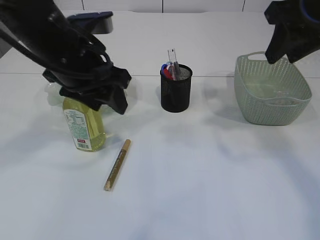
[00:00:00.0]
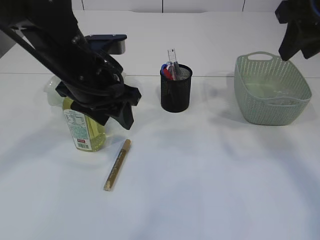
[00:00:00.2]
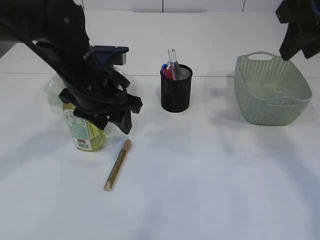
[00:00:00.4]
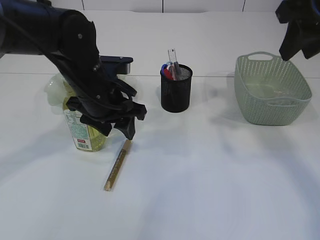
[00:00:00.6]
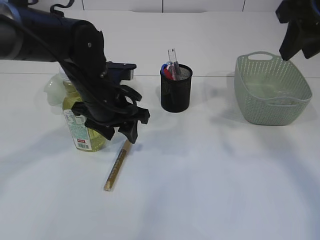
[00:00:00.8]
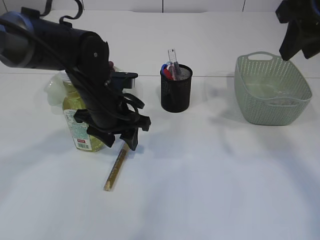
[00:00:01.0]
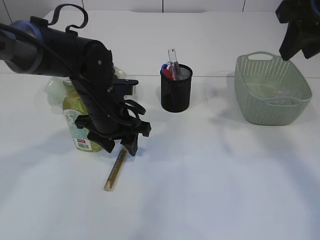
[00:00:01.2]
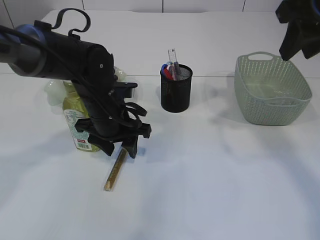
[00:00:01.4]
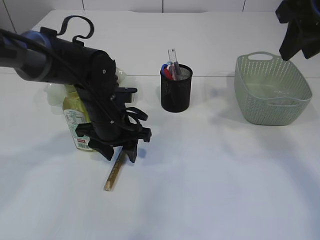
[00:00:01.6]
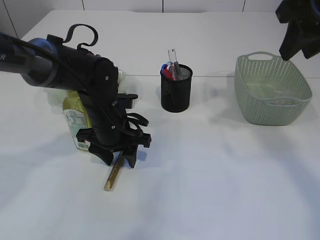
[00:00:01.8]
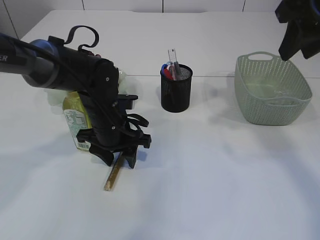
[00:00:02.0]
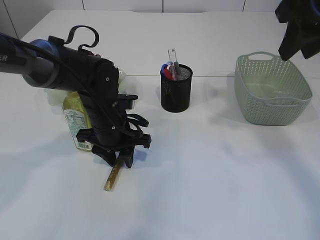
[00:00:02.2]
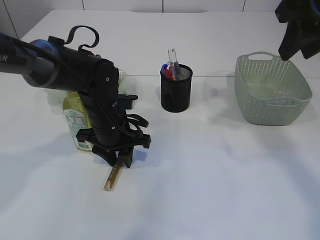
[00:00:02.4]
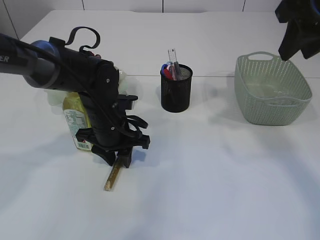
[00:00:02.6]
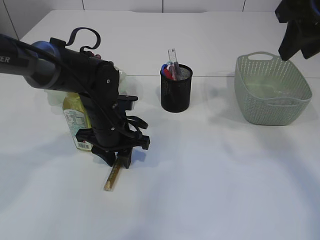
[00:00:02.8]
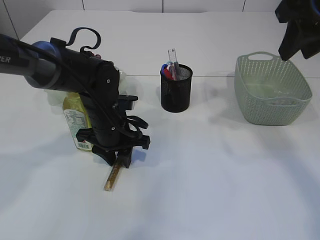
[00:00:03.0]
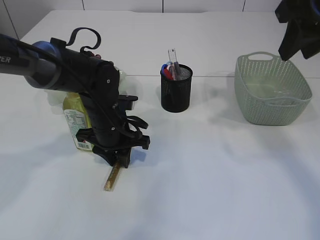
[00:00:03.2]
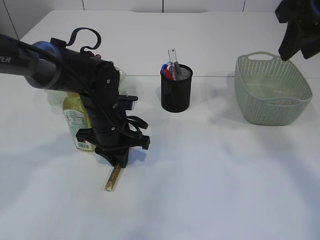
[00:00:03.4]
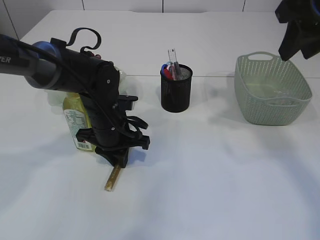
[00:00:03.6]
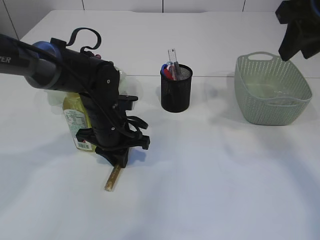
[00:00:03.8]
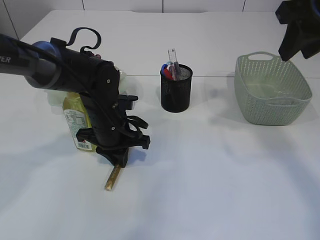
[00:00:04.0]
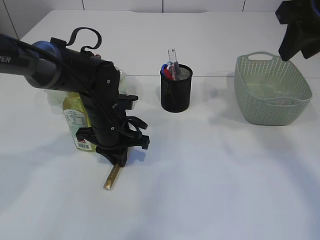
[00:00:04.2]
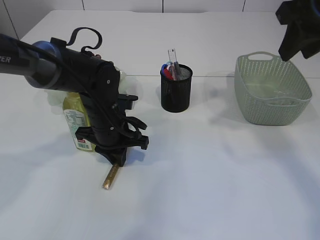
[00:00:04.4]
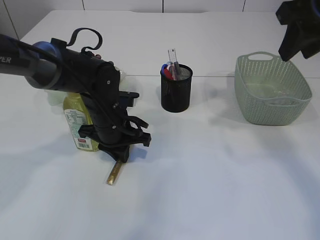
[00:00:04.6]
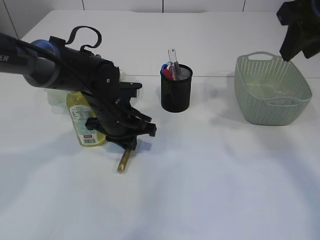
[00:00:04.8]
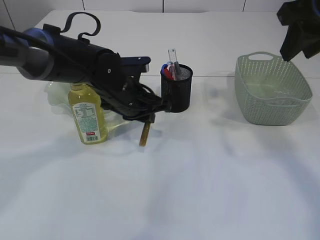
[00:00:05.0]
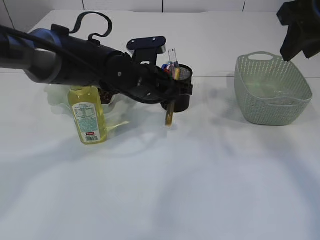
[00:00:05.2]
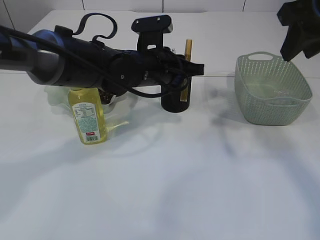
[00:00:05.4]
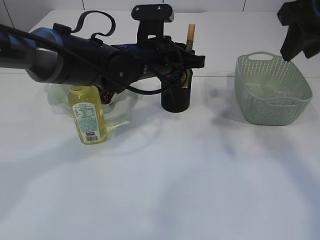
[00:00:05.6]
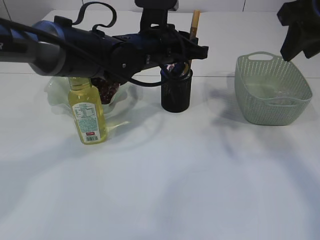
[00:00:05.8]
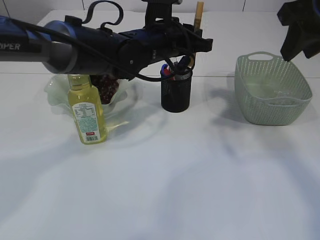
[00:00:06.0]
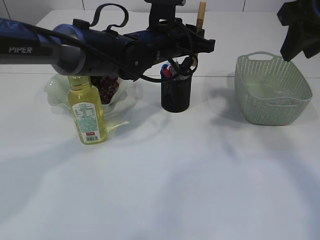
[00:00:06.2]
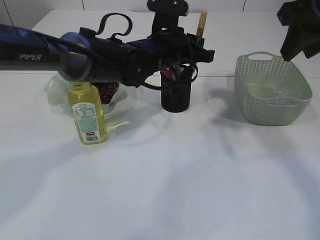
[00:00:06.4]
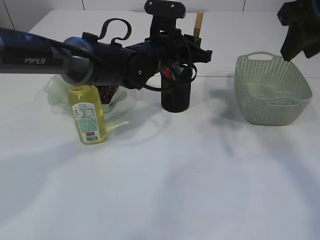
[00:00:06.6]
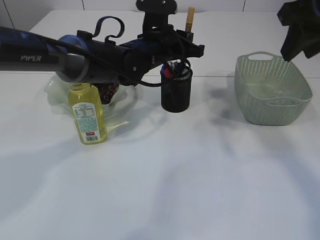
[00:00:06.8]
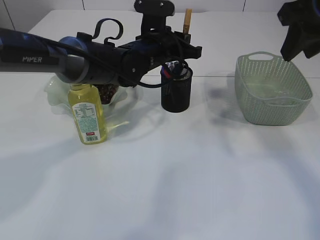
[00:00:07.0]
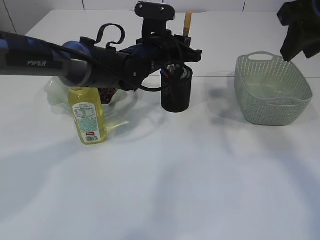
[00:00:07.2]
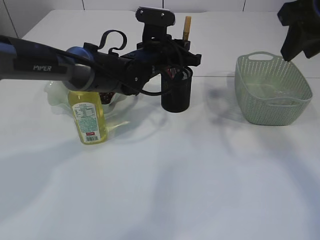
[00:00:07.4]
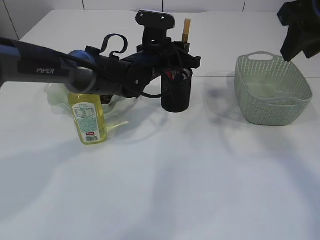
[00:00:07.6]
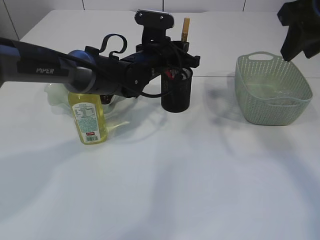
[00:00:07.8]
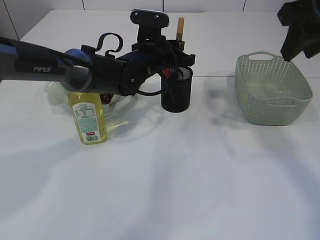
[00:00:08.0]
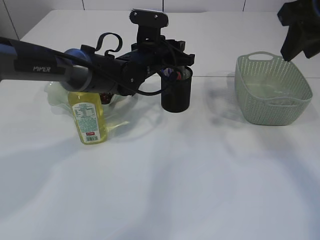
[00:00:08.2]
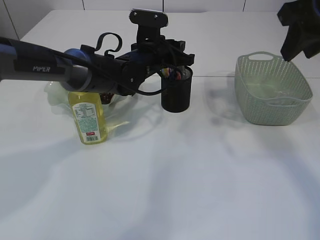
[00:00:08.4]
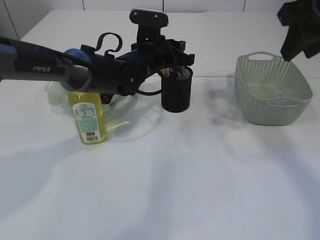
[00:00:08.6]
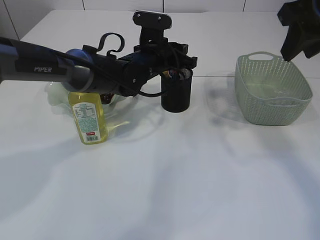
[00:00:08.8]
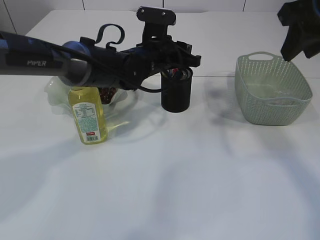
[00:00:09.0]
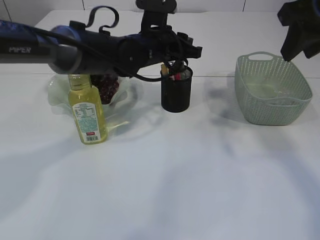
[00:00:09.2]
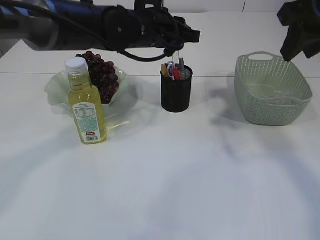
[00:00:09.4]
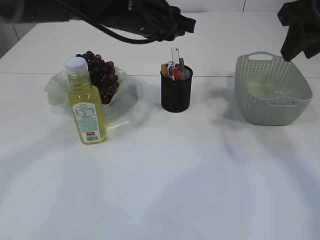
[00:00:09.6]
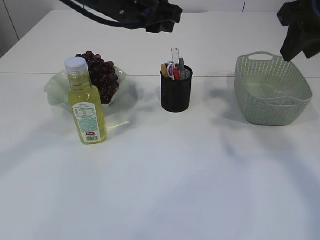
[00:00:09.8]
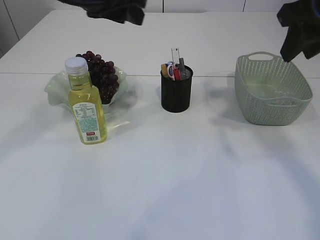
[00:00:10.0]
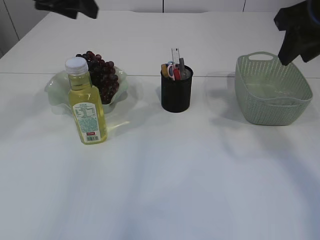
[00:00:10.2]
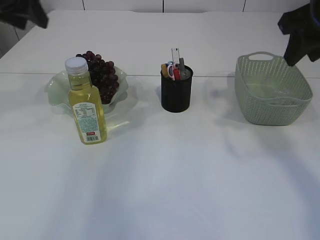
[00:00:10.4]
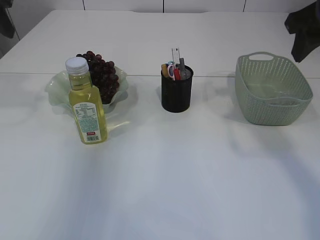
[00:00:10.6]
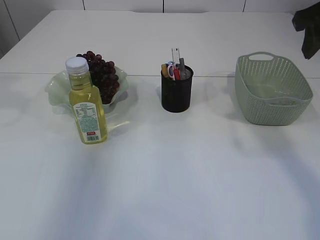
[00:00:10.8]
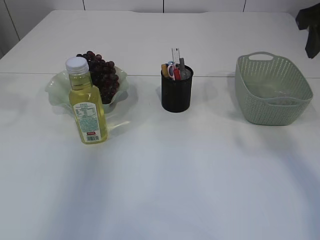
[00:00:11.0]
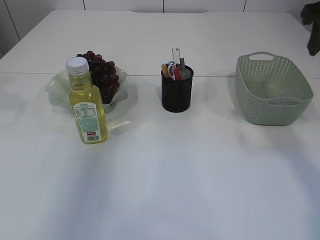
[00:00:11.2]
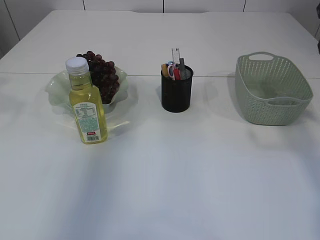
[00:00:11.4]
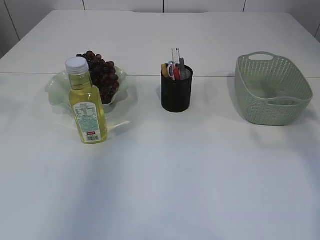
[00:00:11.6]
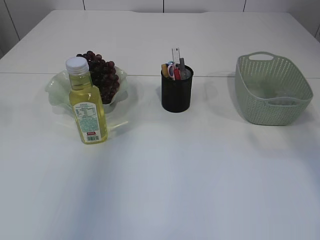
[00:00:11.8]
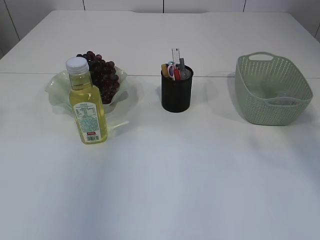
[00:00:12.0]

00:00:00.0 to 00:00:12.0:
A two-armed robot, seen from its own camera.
Step, 00:00:00.0 to 00:00:05.0: pick up the yellow glue.
Step, 00:00:05.2 to 00:00:09.4: place the yellow glue into the pen holder.
00:00:00.0 to 00:00:01.6: The left gripper goes about 15 cm downward.
00:00:01.6 to 00:00:03.0: The grippers make only small movements.
00:00:03.0 to 00:00:04.4: The left gripper closes its fingers.
00:00:04.4 to 00:00:06.0: The left gripper shifts about 15 cm upward, to the right and forward.
00:00:06.0 to 00:00:07.6: The left gripper shifts some 5 cm downward.
00:00:07.6 to 00:00:09.0: Both grippers stay about where they are.
00:00:09.0 to 00:00:10.4: The left gripper is displaced to the left and upward by some 30 cm.
00:00:10.4 to 00:00:12.0: The left gripper moves backward, upward and to the left, roughly 15 cm; the right gripper goes roughly 5 cm to the right.

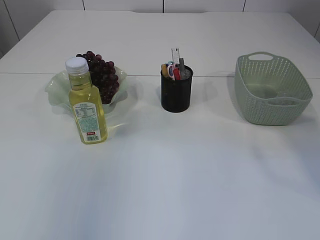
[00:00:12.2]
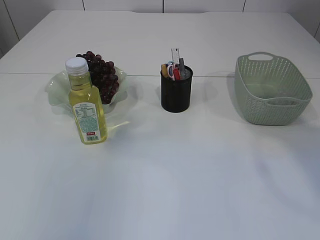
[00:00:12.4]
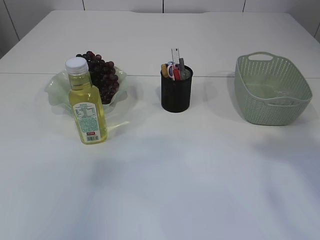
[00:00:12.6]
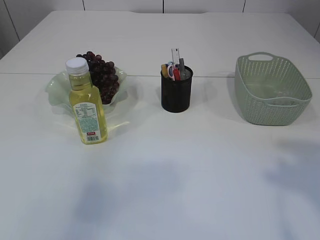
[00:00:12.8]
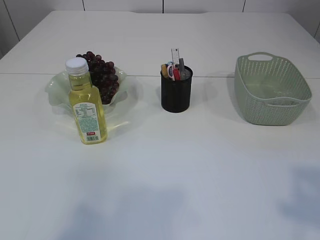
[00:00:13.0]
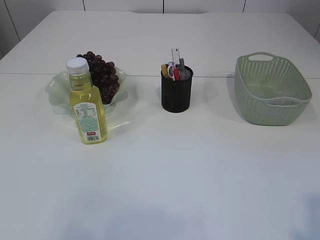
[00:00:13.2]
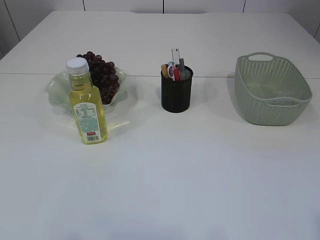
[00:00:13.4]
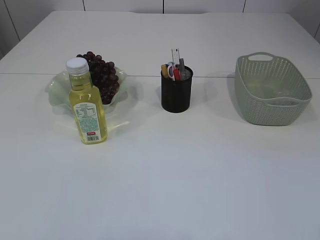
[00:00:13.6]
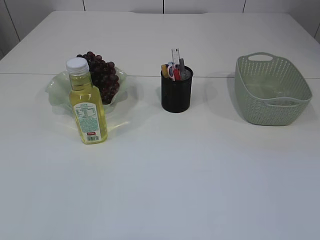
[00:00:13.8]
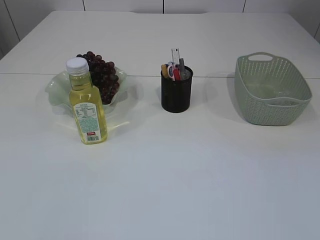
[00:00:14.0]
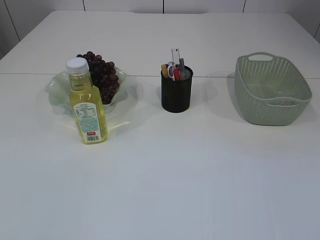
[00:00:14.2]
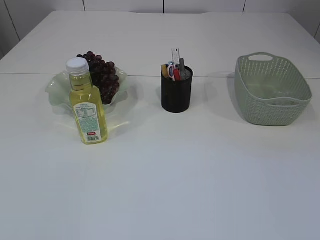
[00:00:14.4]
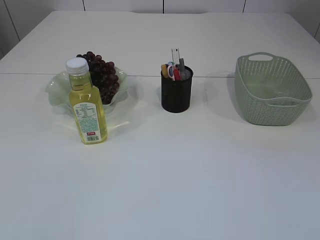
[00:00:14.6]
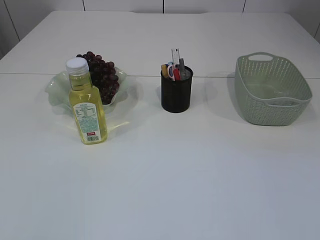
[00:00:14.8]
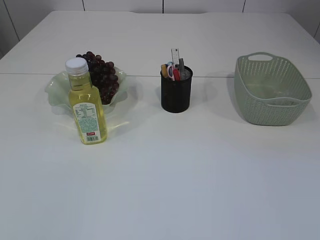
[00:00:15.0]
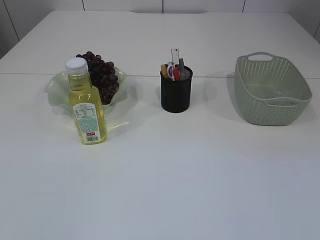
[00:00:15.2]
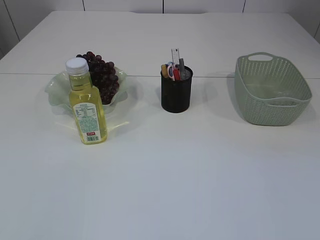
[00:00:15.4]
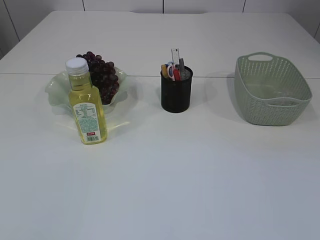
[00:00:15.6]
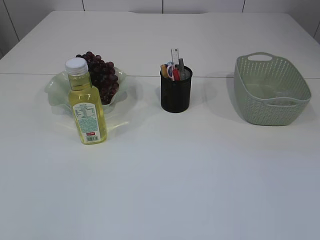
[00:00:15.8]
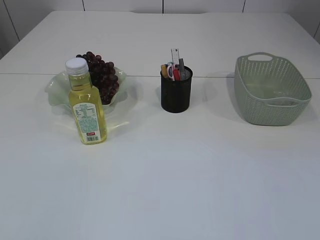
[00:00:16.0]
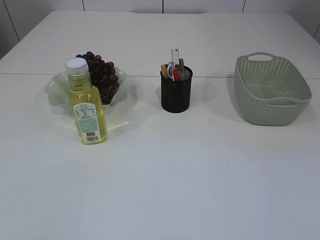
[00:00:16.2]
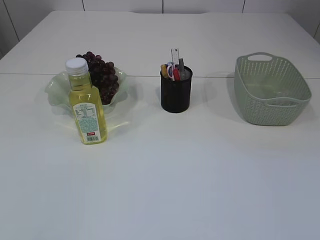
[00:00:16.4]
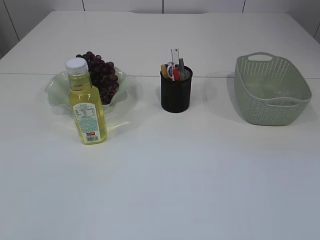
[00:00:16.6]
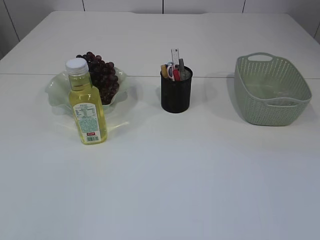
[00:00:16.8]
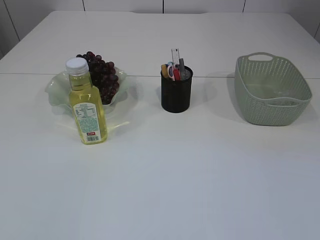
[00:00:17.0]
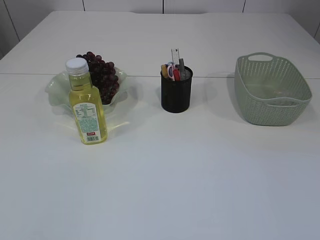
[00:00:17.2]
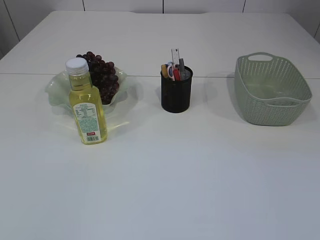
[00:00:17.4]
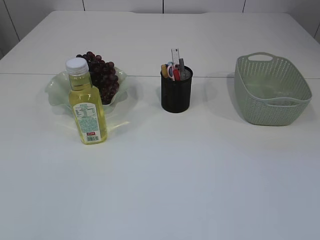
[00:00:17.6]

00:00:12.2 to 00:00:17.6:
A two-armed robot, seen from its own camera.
00:00:16.2 to 00:00:17.6: Both grippers stay about where they are.
